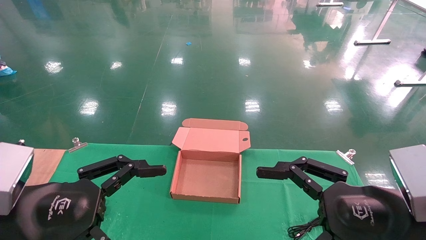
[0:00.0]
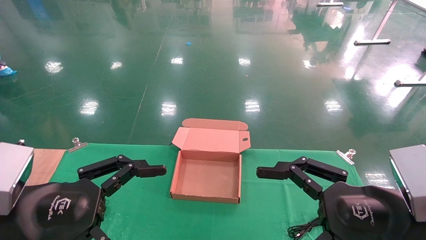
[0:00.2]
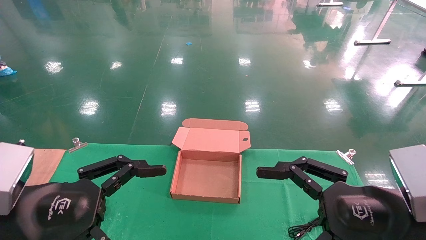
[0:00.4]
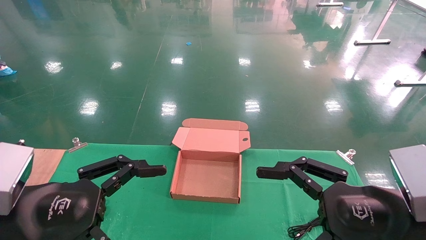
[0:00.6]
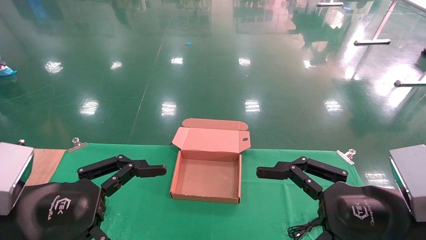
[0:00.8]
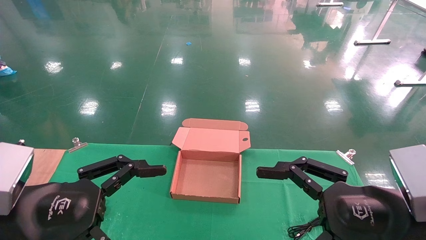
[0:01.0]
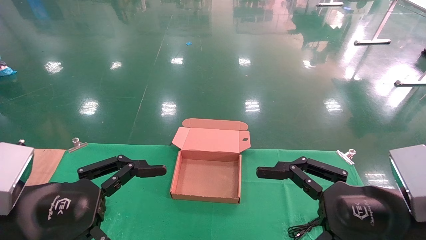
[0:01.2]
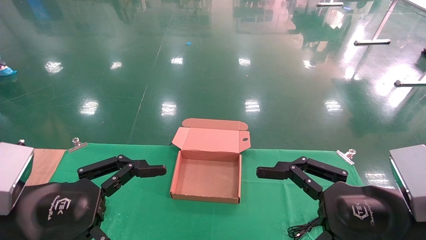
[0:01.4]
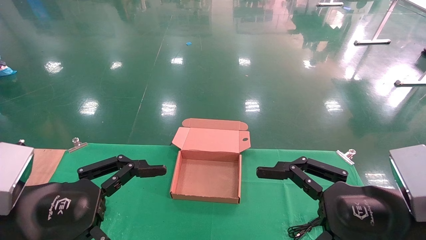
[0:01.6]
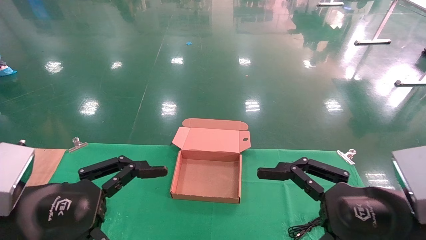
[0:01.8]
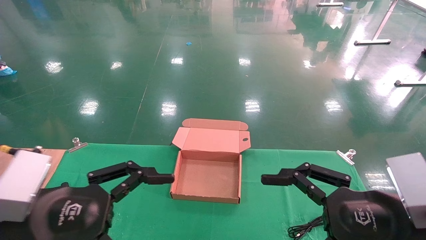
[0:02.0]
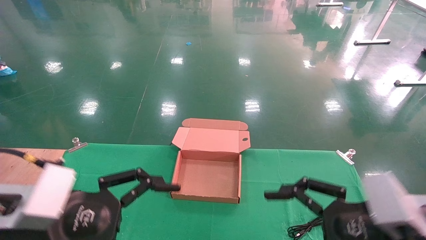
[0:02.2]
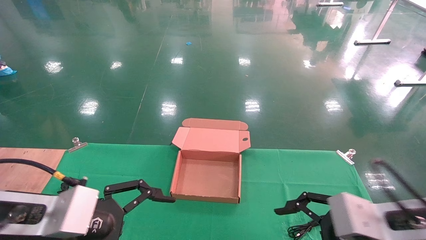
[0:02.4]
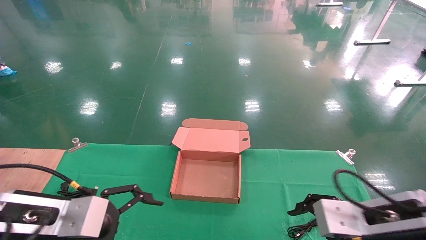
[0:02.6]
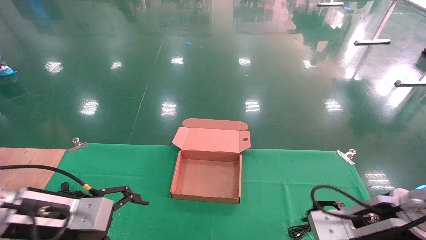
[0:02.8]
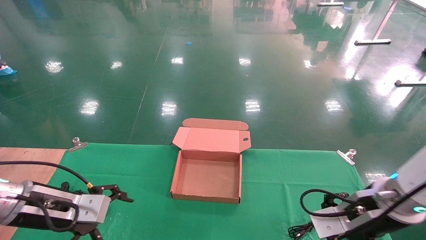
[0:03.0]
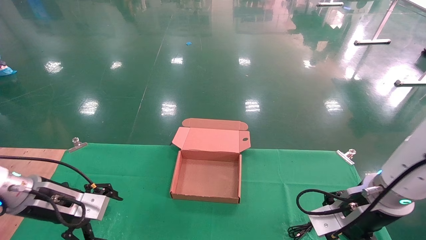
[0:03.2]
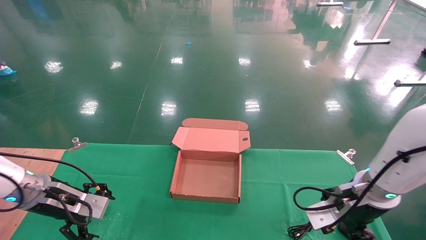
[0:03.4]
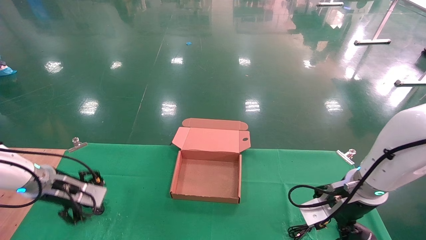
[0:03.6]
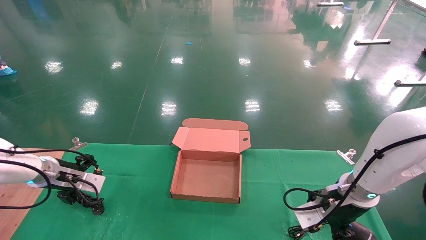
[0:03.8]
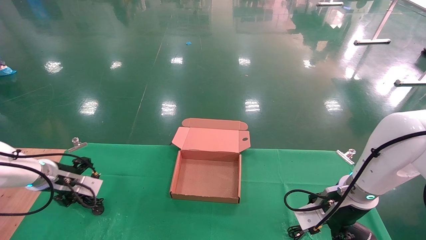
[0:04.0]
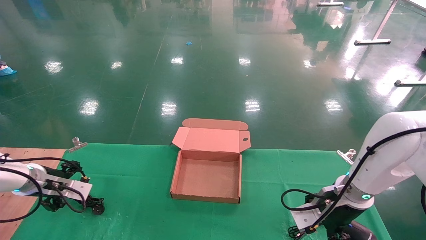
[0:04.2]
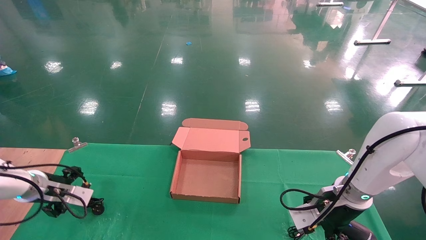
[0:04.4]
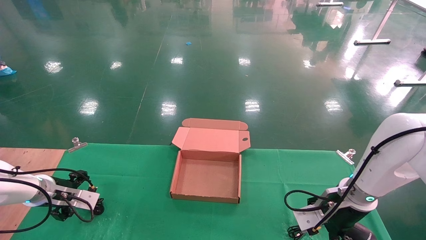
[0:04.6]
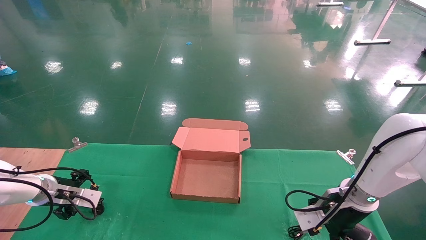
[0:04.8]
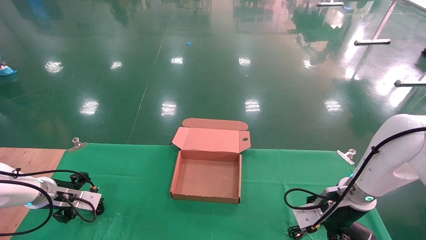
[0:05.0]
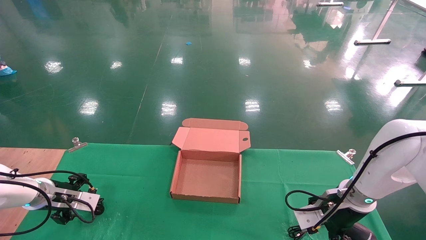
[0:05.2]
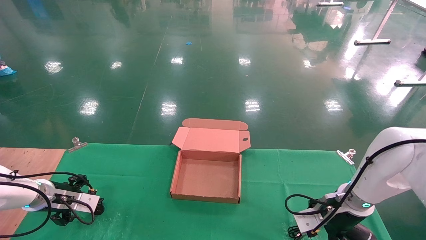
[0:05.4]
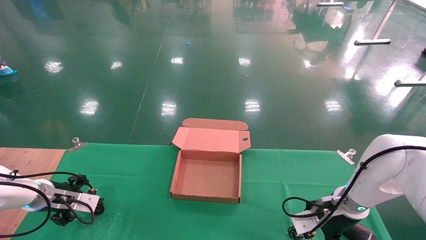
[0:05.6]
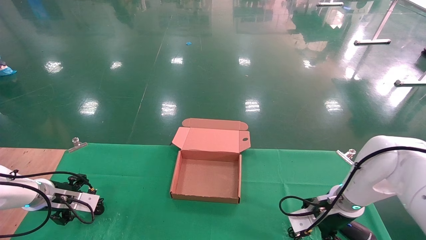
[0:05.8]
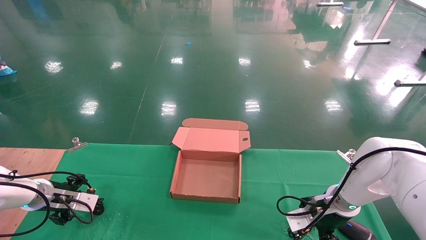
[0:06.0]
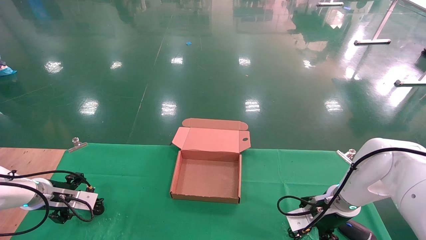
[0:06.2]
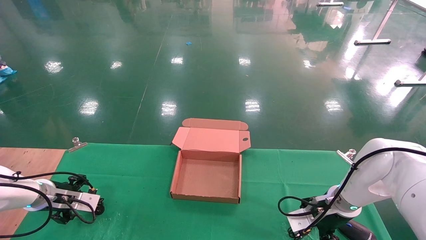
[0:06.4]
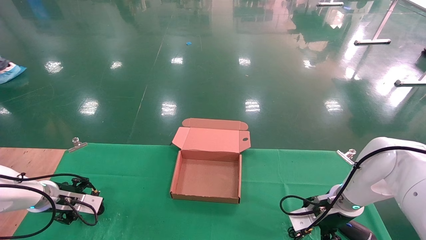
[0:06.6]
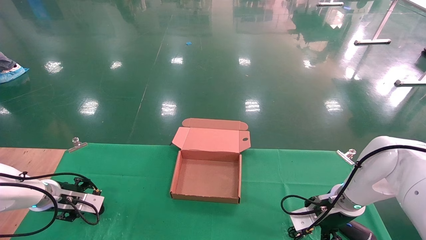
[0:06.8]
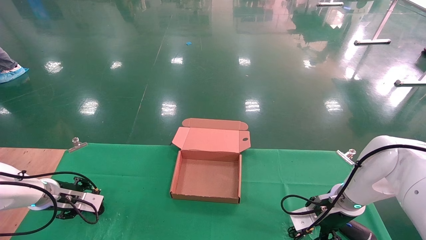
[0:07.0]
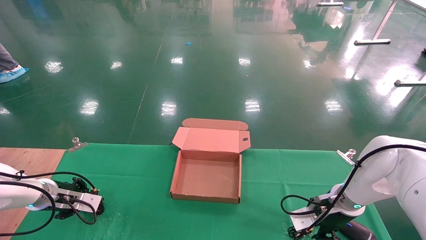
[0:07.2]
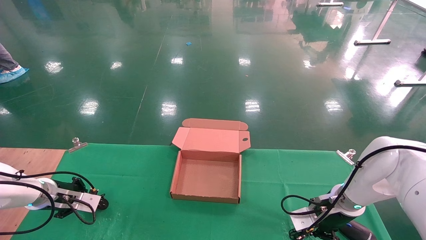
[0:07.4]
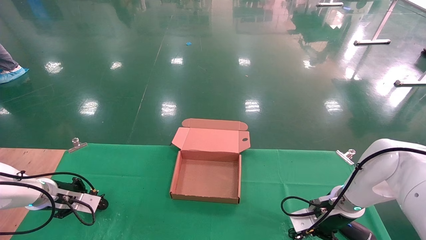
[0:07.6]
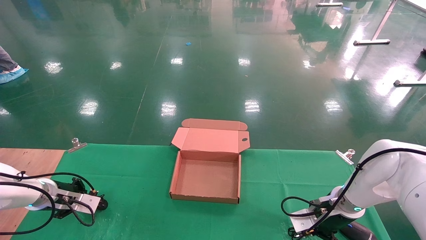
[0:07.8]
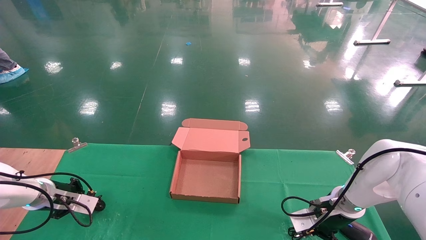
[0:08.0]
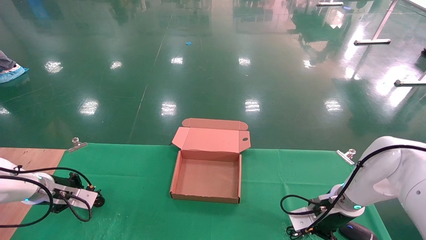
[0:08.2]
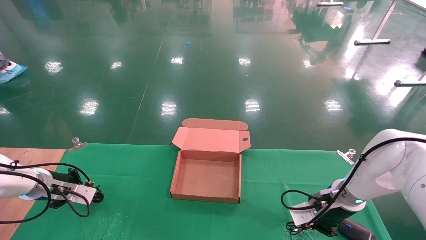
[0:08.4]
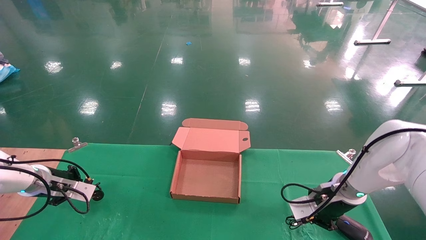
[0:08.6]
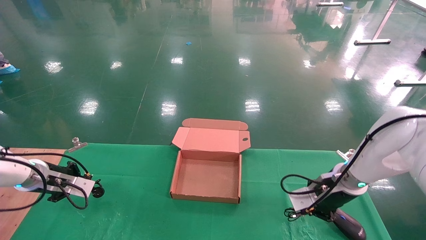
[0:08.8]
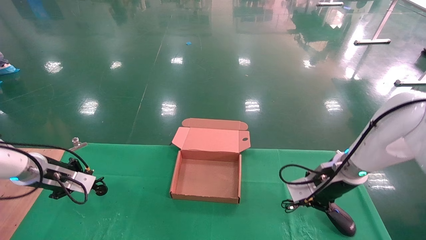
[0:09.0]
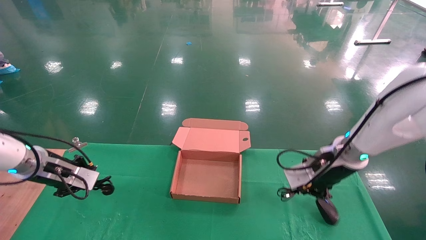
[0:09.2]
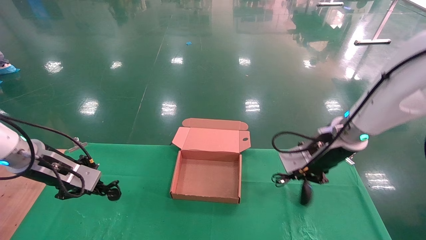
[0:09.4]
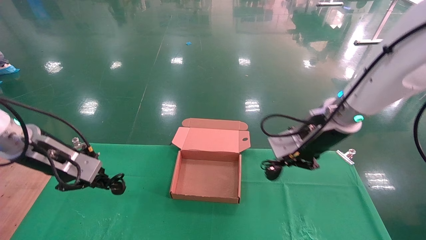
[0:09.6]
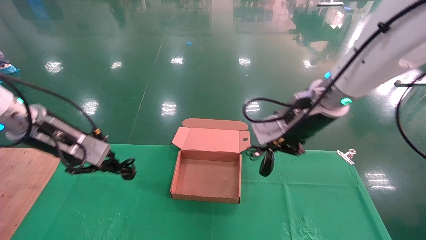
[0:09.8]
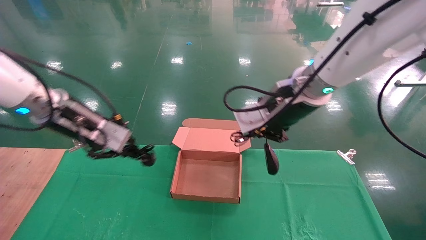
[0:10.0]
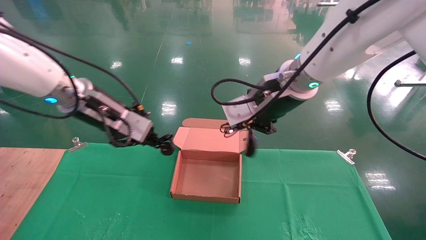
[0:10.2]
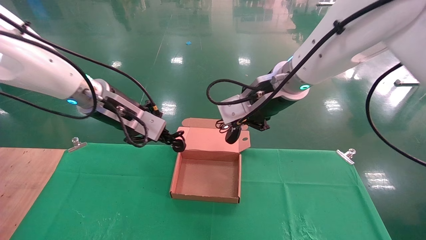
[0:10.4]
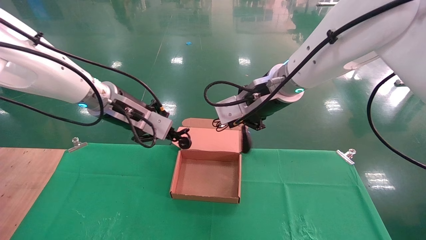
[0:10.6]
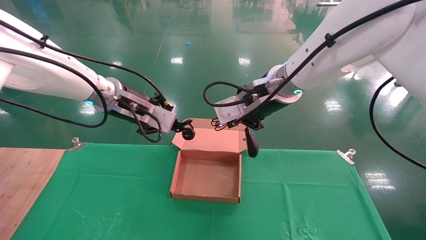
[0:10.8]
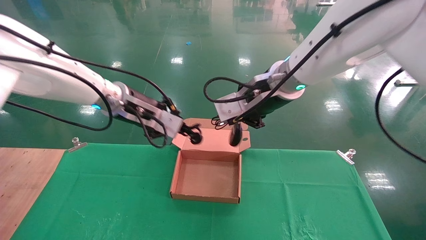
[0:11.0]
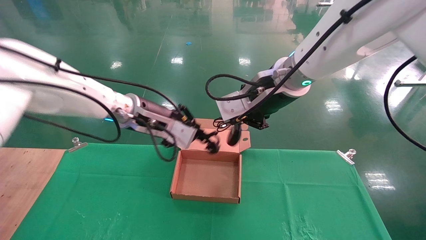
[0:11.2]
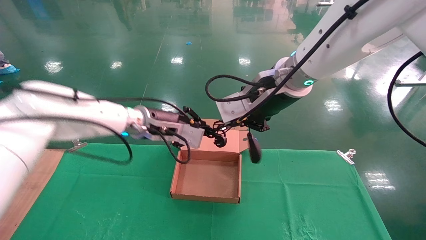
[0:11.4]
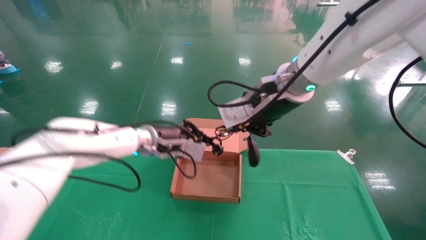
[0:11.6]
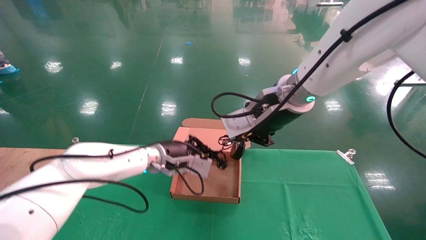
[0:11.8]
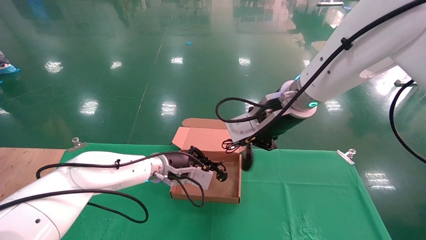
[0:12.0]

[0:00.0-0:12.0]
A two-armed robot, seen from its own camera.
Step, 0:02.0 to 0:10.0: Grab and lift both the mouse and power cord from the accessory packaging area at the same time.
0:00.0 to 0:01.6: The two grippers keep their place.
0:01.6 to 0:03.0: The right gripper is displaced forward by approximately 10 cm. Meanwhile the left gripper moves forward and downward, some 15 cm.
0:03.0 to 0:04.4: The right gripper travels forward by about 10 cm, while the left gripper goes approximately 15 cm forward, to the left and downward.
0:04.4 to 0:06.0: The right gripper ends up about 5 cm from where it was.
0:06.0 to 0:07.6: The left gripper closes its fingers; the right gripper closes its fingers.
0:07.6 to 0:09.0: The grippers both shift upward by roughly 10 cm.
0:09.0 to 0:10.4: The right gripper shifts about 25 cm upward and to the left; the left gripper shifts about 25 cm to the right and upward.
0:10.4 to 0:12.0: The left gripper goes approximately 20 cm downward, to the right and forward.

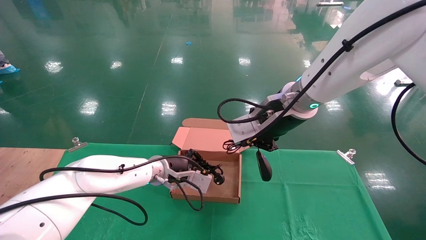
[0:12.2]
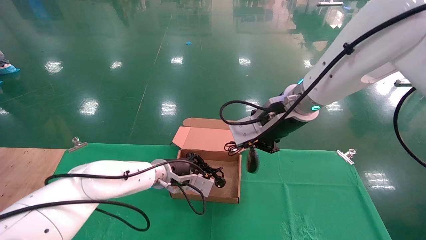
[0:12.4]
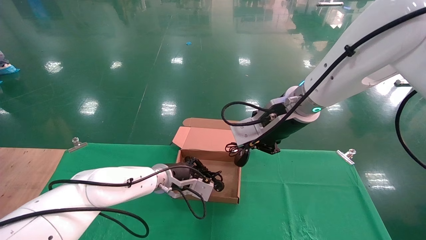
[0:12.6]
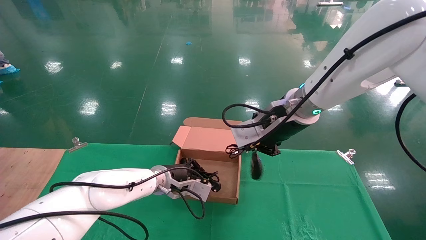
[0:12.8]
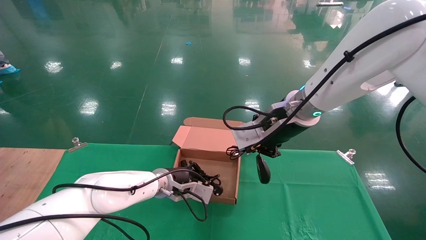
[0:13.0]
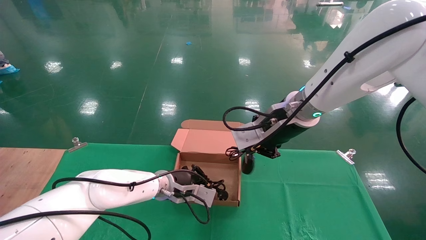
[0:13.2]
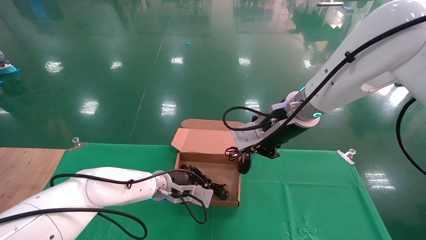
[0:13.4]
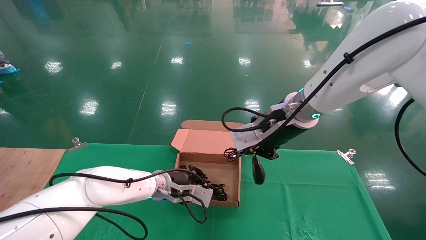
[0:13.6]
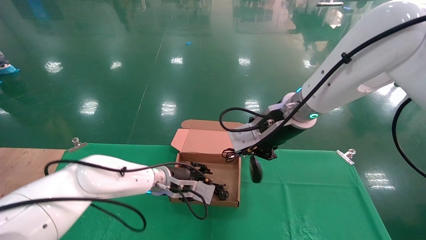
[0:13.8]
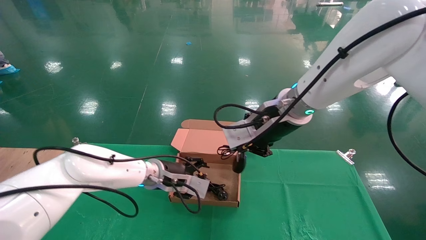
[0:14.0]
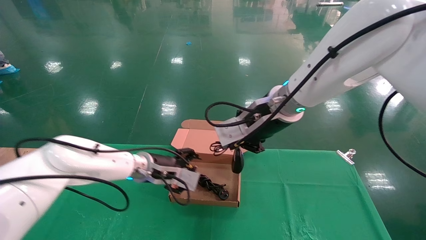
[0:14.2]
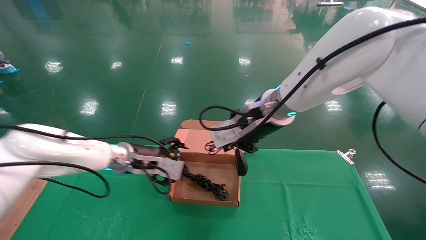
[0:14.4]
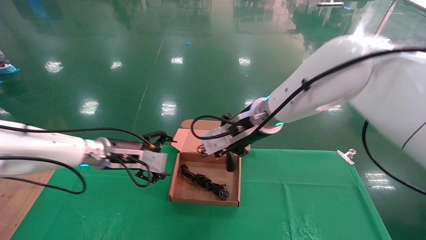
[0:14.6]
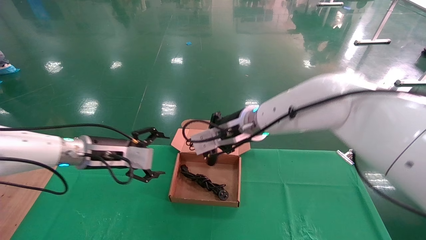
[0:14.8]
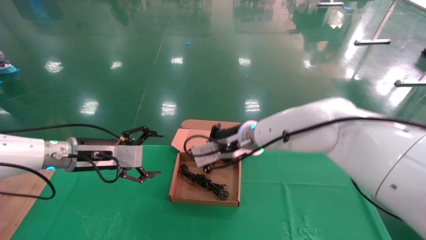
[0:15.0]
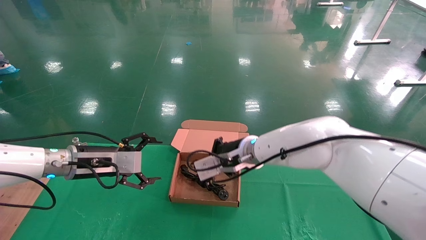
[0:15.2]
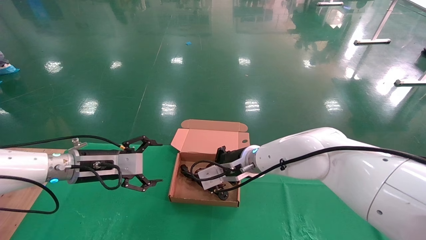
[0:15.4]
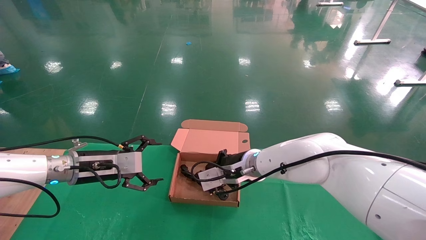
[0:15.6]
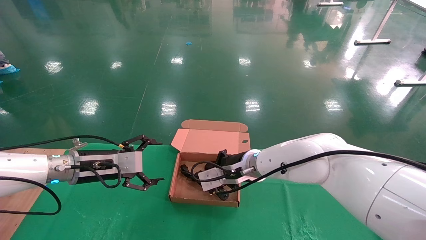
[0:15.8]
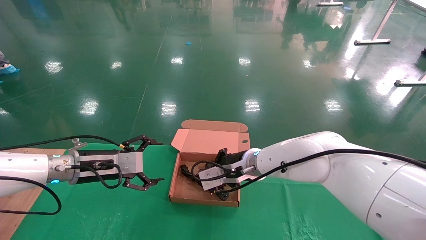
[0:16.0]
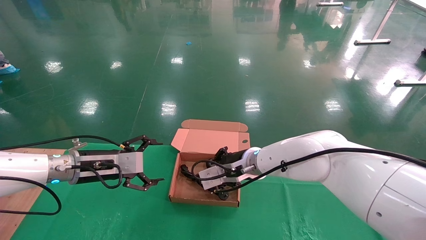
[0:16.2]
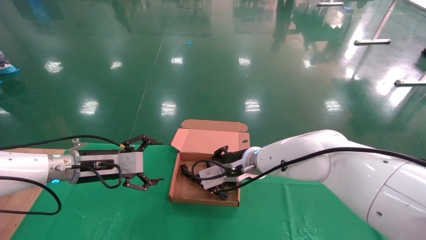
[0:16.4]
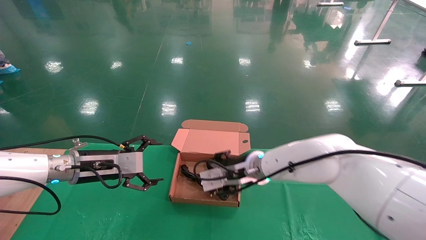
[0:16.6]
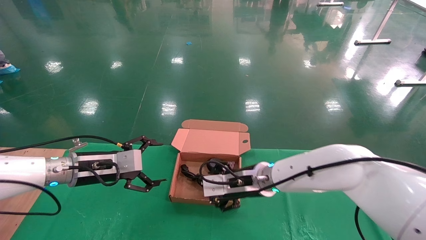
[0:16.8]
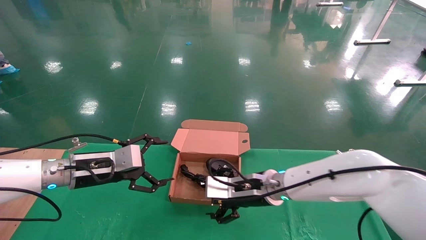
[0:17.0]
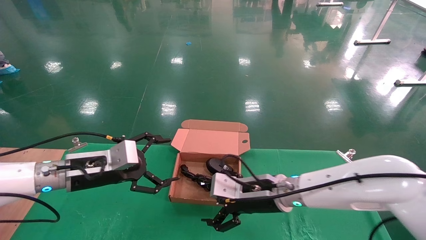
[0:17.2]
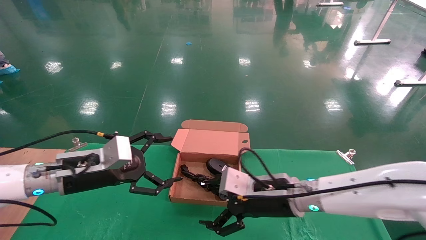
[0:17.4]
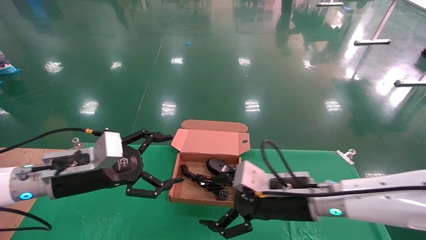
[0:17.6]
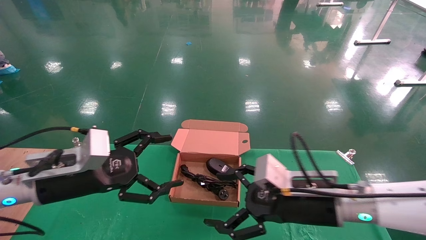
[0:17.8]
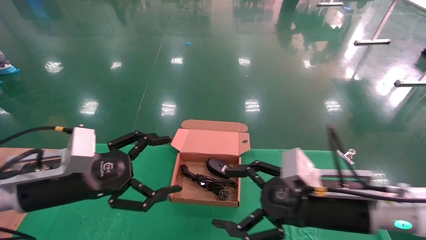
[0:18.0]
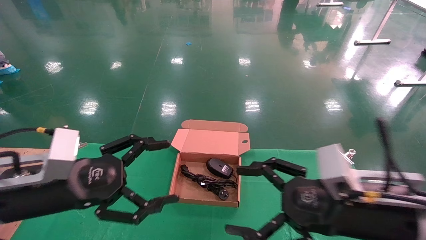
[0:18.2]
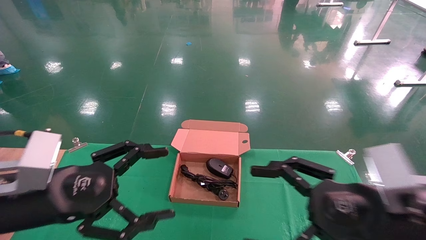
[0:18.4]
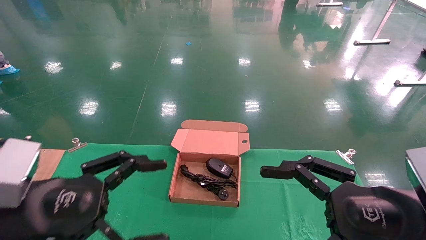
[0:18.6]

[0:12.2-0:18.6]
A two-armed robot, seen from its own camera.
Step, 0:12.2 to 0:17.0: Place the mouse and power cord into the box.
0:12.2 to 0:13.8: The grippers move only a little.
0:13.8 to 0:15.4: The left gripper is displaced to the left by roughly 15 cm, and opens up, while the right gripper goes approximately 15 cm downward, to the left and forward.
0:15.4 to 0:17.0: The right gripper changes place by approximately 10 cm, and opens.
0:17.0 to 0:18.6: The left gripper shifts roughly 20 cm backward. Meanwhile the right gripper is displaced backward, to the right and upward by roughly 30 cm.
